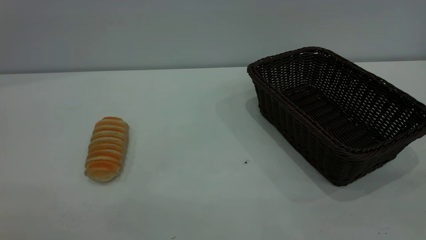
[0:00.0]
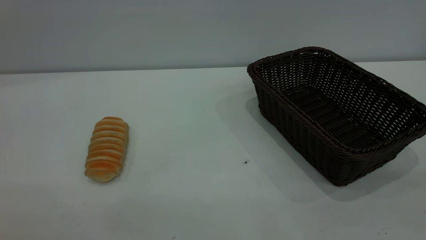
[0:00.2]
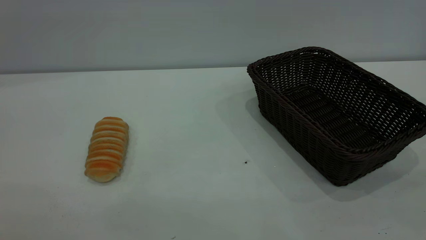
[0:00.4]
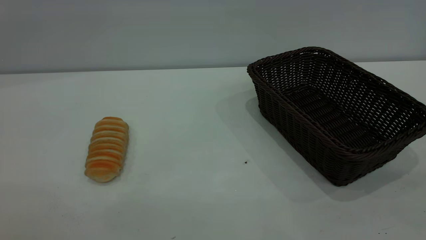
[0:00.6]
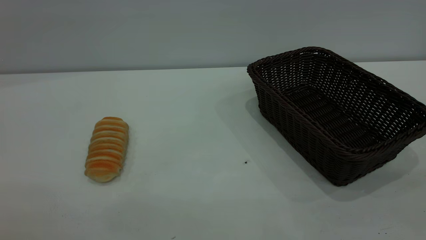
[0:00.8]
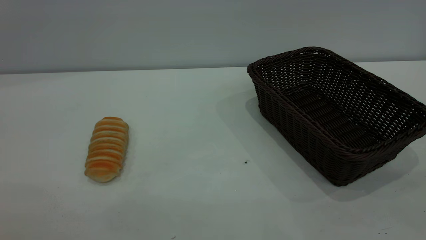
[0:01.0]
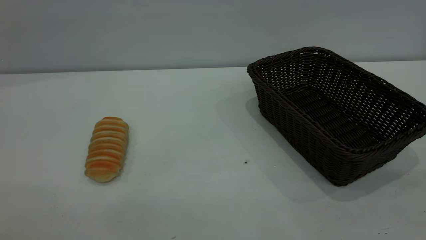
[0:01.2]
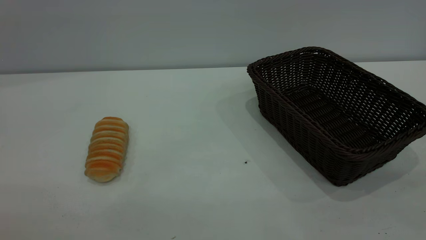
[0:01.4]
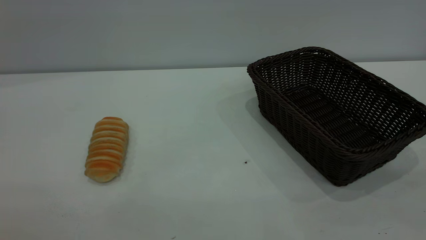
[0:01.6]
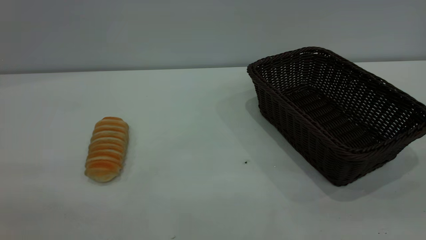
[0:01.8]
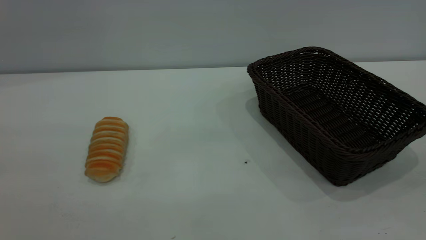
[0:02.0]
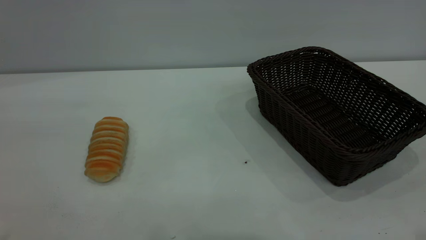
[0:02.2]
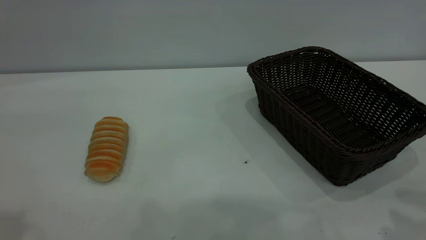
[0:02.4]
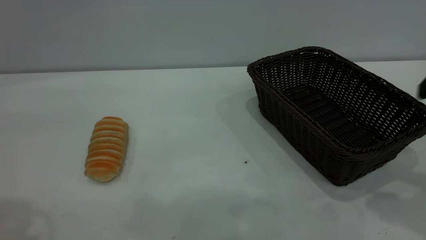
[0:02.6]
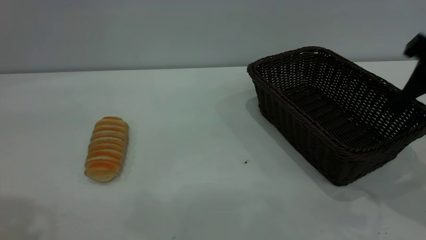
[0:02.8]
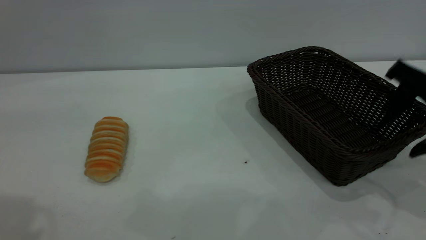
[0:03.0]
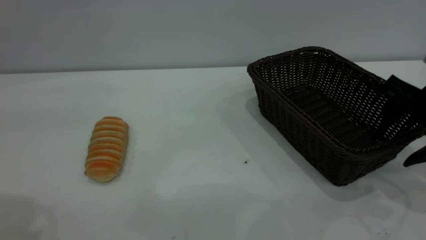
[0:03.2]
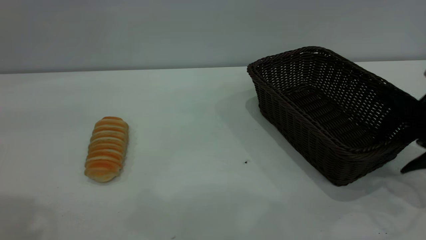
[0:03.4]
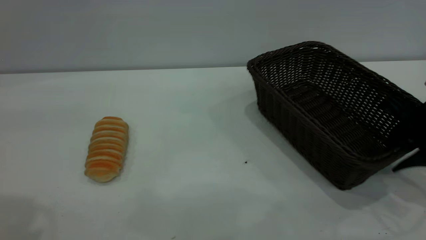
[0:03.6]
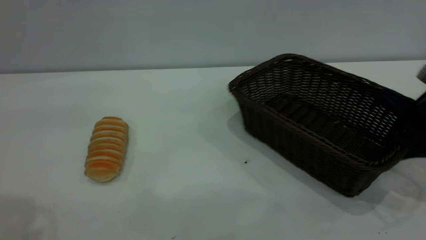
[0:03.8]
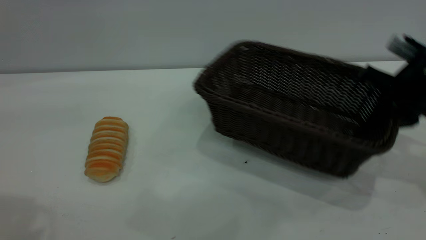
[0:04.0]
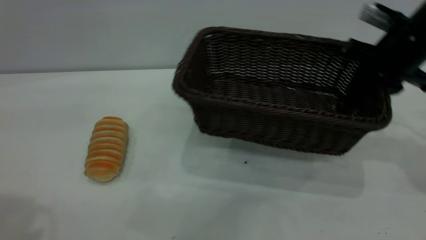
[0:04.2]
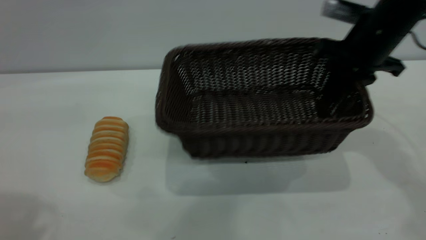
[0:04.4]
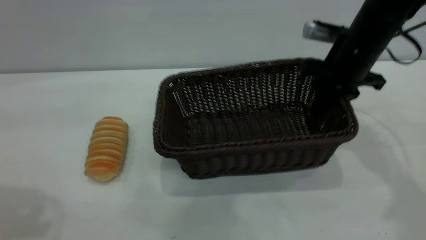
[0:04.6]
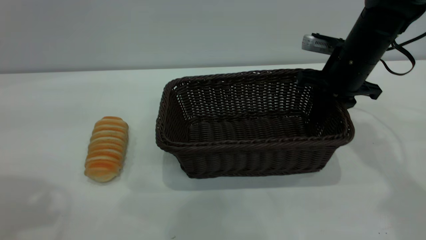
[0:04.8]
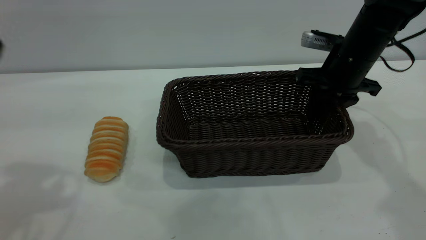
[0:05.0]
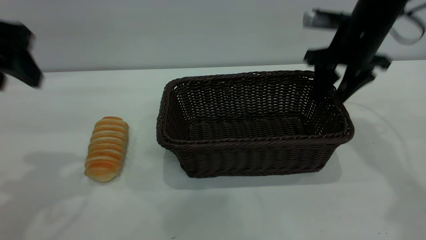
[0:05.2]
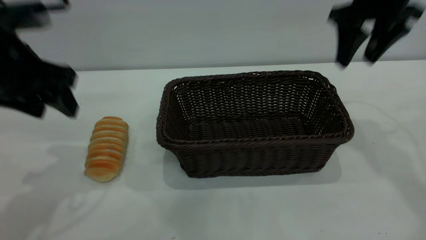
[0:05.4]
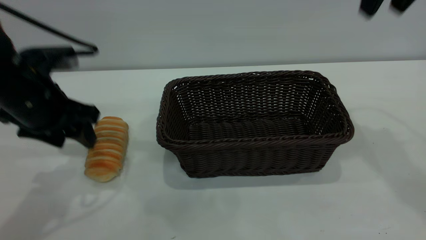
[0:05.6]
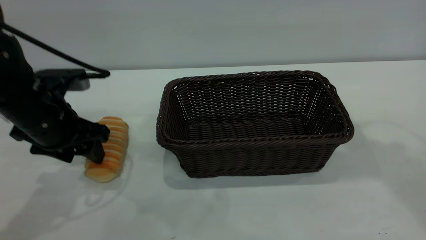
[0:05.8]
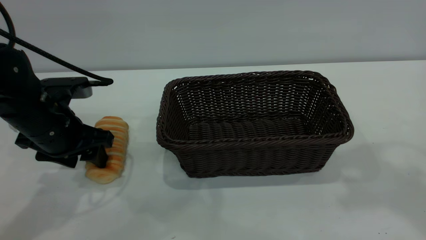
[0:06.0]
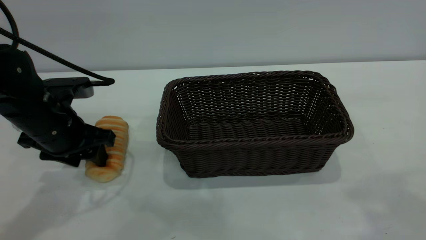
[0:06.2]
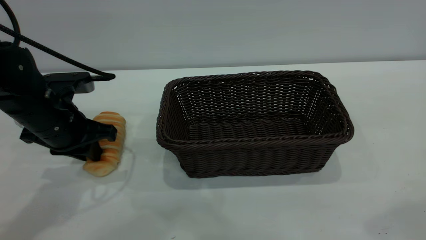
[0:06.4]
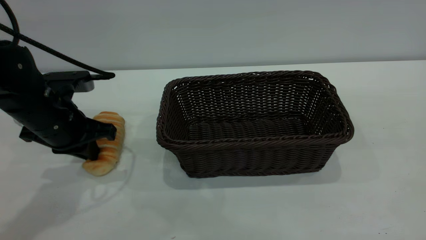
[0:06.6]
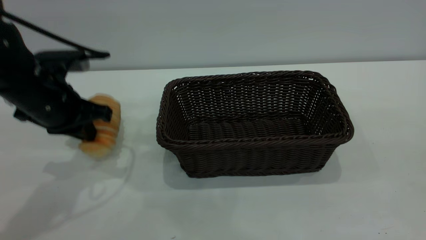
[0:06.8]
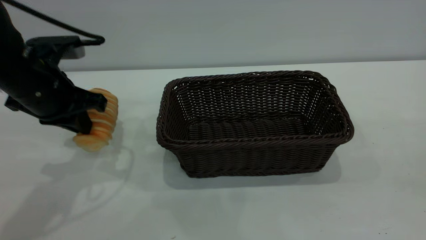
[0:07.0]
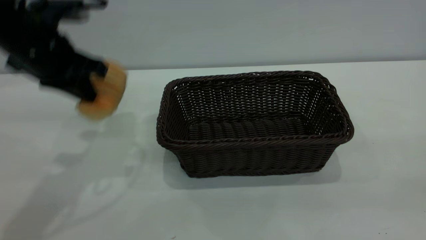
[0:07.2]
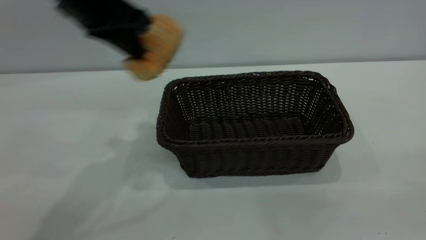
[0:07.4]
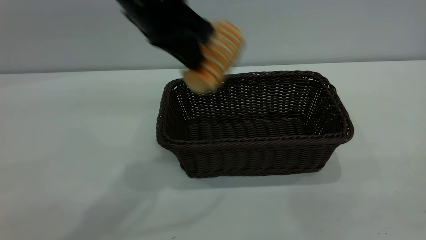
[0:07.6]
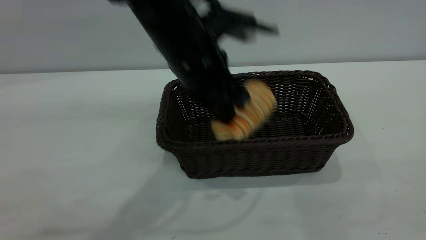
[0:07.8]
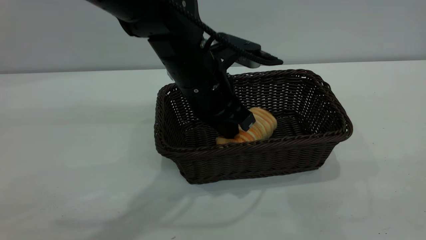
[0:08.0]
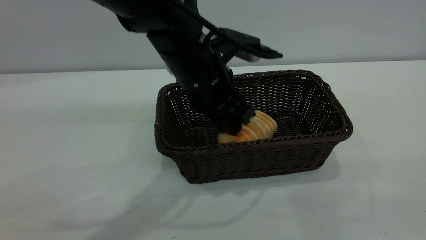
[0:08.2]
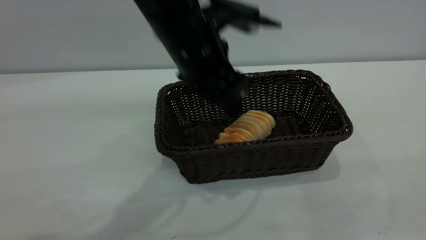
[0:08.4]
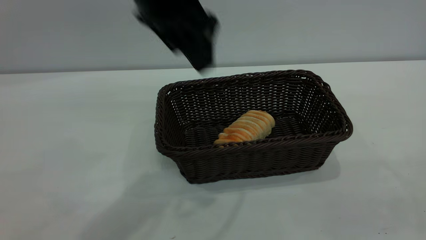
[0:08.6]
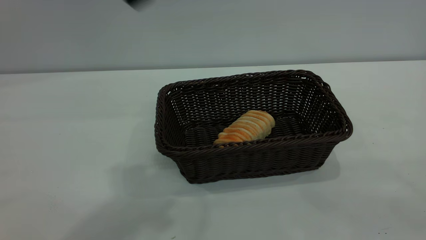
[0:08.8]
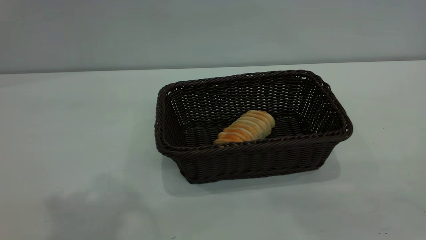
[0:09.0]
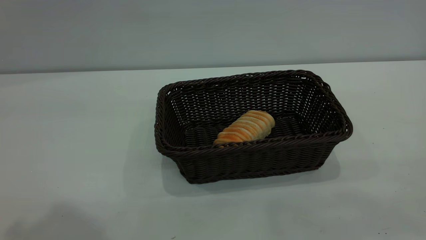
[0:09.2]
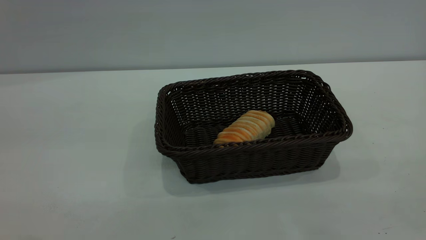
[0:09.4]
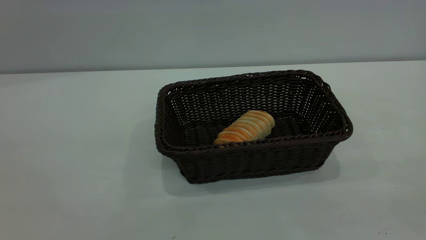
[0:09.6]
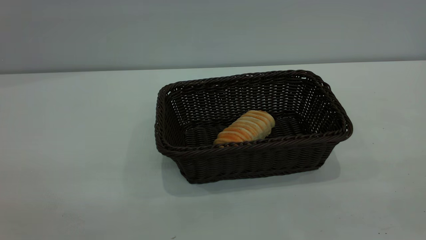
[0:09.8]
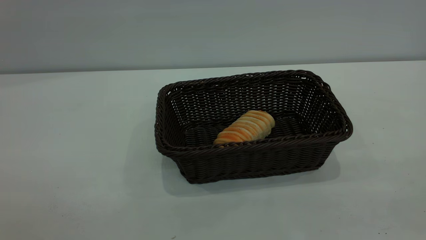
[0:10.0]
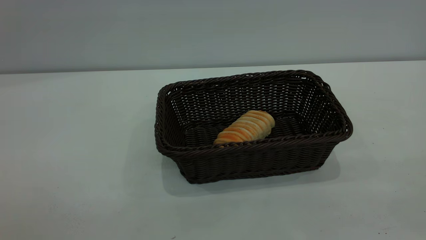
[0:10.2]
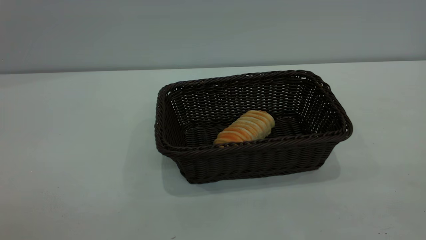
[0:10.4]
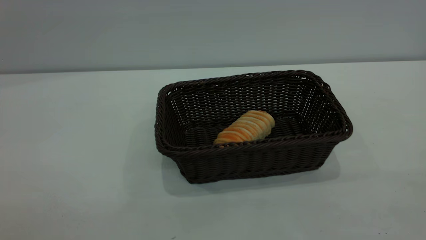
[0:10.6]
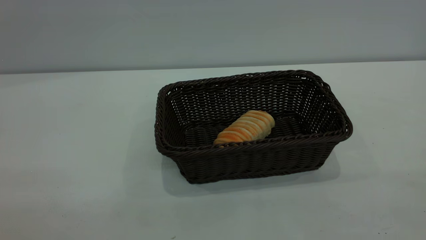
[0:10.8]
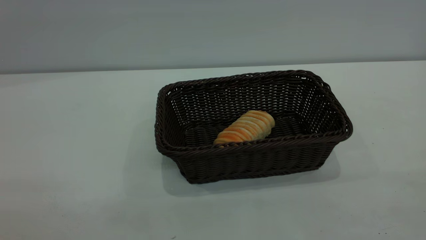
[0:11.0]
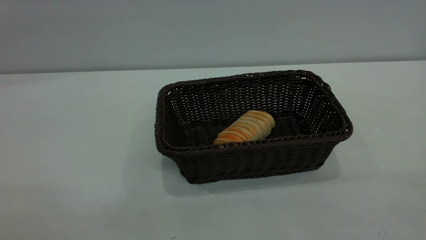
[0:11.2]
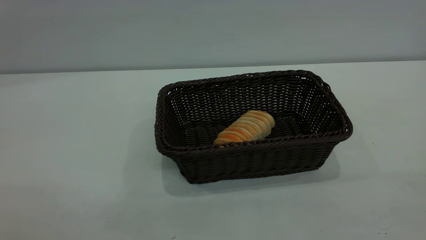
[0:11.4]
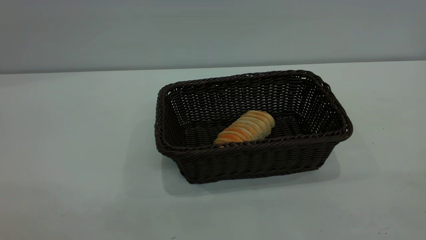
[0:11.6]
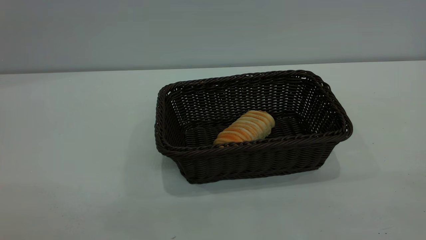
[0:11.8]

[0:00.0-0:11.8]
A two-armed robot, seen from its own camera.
Task of the whole recording: One hand grasps the black basket and places it in the middle of the table, while the other hand picks up the long bread and puts it into the black basket.
Step, 0:00.0 to 0:05.2: Move the basket to the center of view.
Step, 0:07.2 to 0:08.4: place the bread into the basket.
0:00.0 to 0:01.4: The two grippers keep their place.
0:01.4 to 0:03.0: The right gripper travels forward and downward by some 35 cm.
0:03.0 to 0:04.4: The right gripper shifts about 15 cm forward and to the left, and closes up.
0:04.4 to 0:06.0: The right gripper goes about 30 cm upward and backward, and opens up. Meanwhile the left gripper moves downward and forward, some 30 cm.
0:06.0 to 0:07.4: The right gripper heads backward and downward, covering approximately 25 cm, while the left gripper is displaced upward and to the right by approximately 20 cm, and closes its fingers.
0:07.4 to 0:08.8: The left gripper heads upward and backward, covering approximately 15 cm, and opens up.
